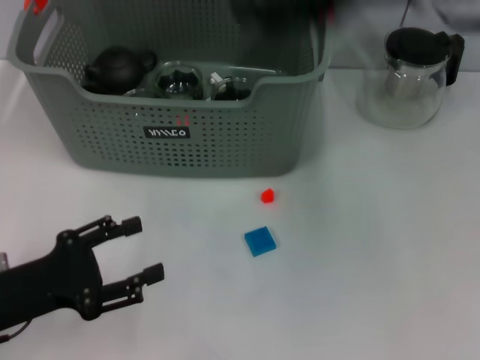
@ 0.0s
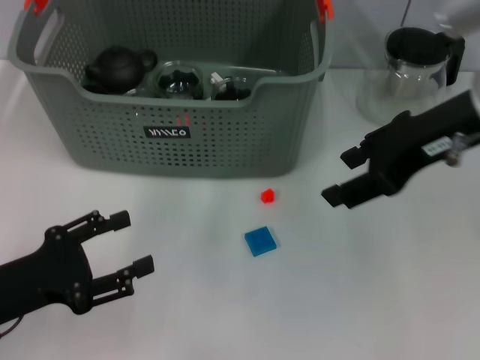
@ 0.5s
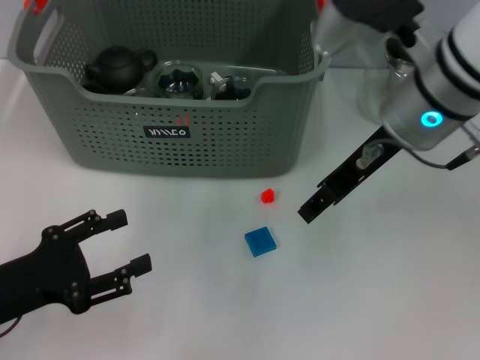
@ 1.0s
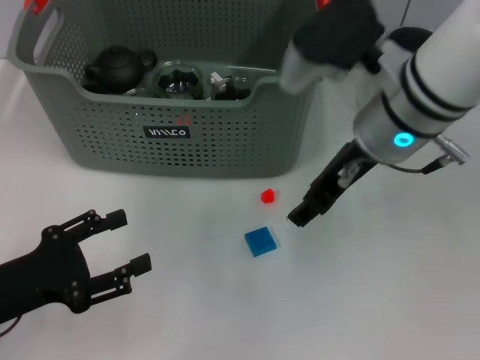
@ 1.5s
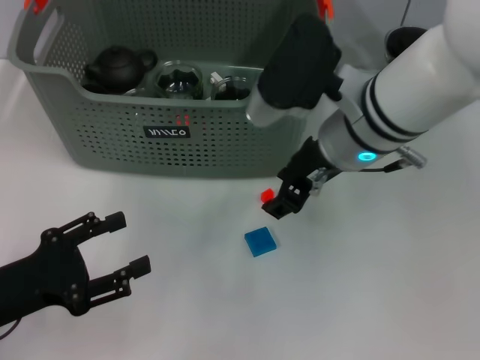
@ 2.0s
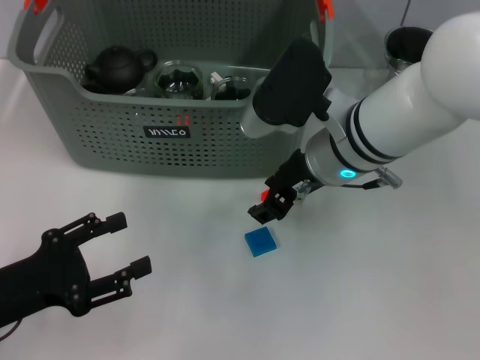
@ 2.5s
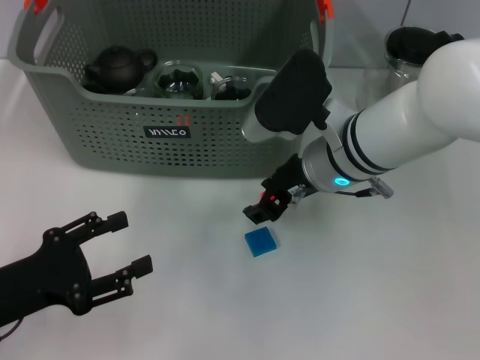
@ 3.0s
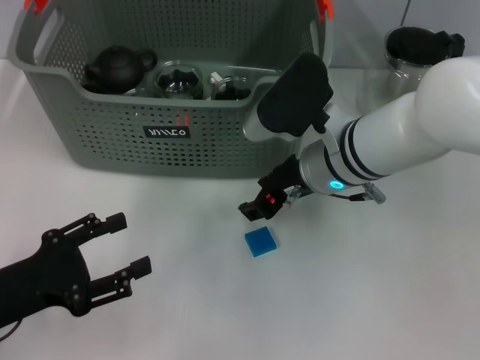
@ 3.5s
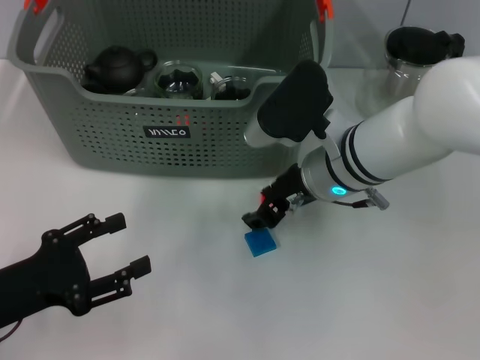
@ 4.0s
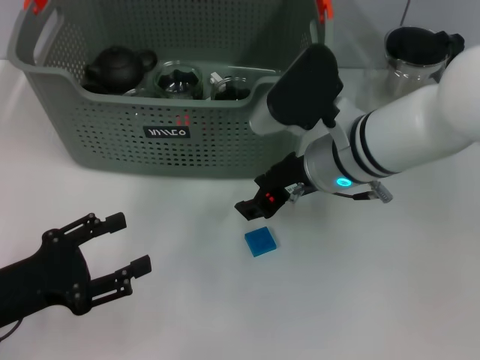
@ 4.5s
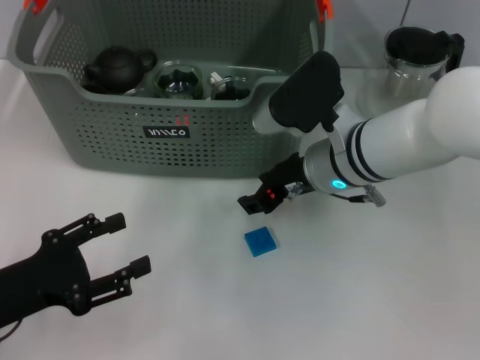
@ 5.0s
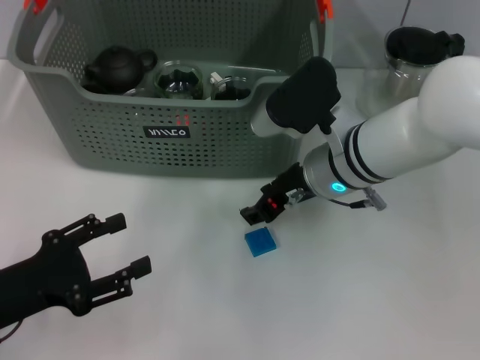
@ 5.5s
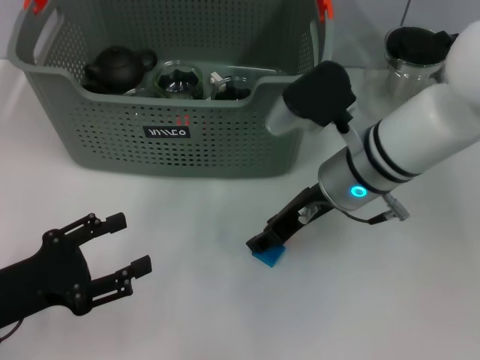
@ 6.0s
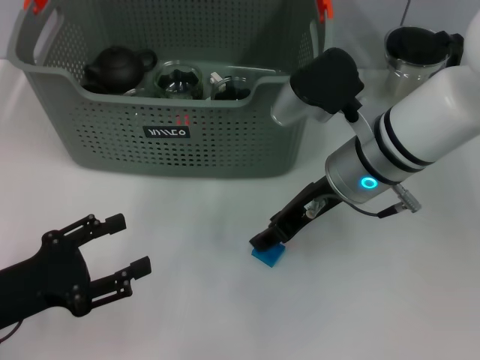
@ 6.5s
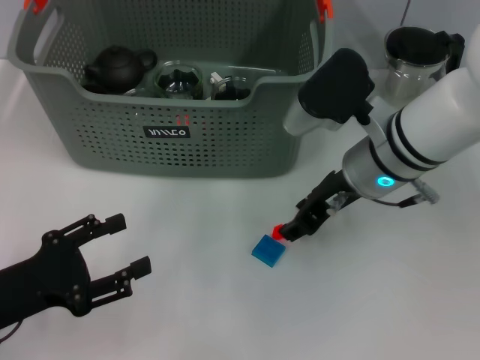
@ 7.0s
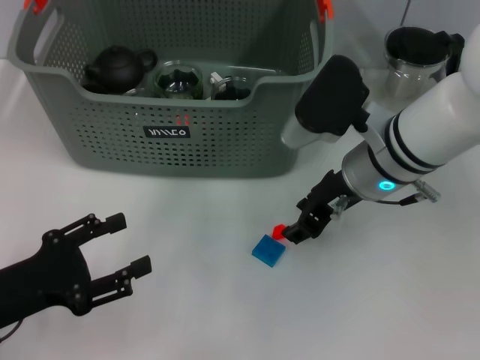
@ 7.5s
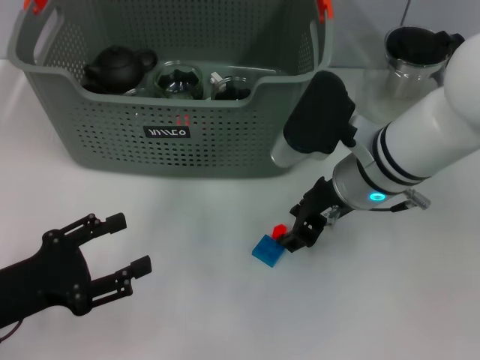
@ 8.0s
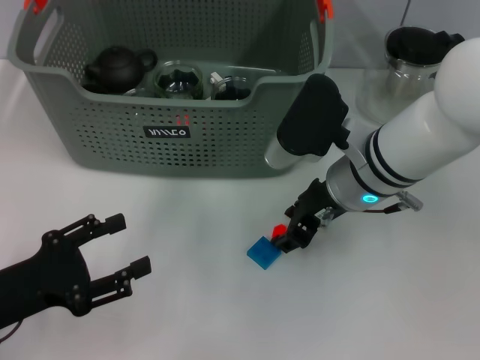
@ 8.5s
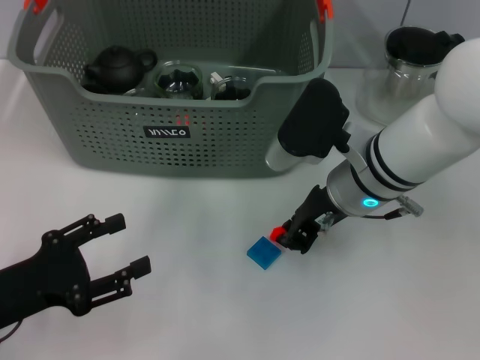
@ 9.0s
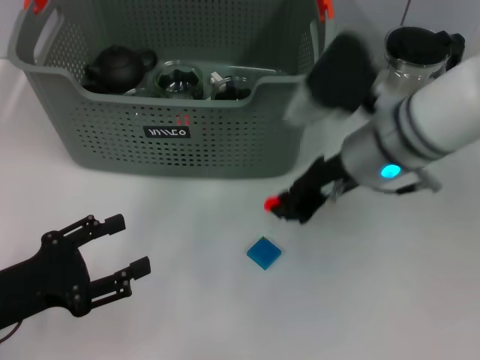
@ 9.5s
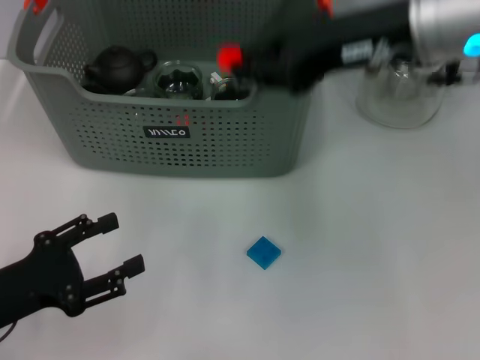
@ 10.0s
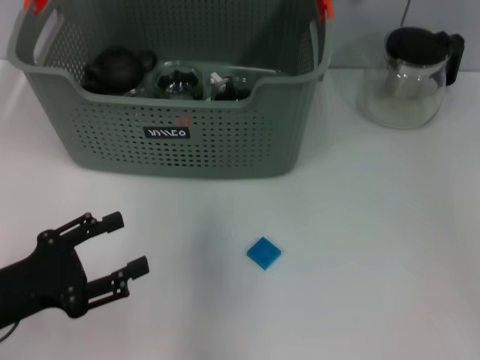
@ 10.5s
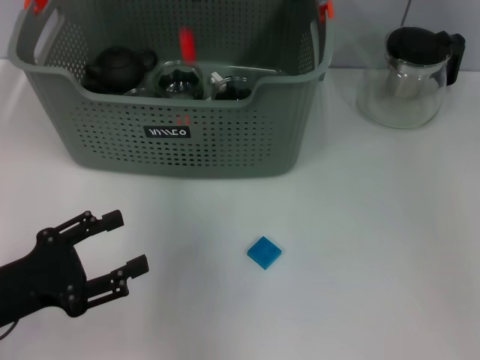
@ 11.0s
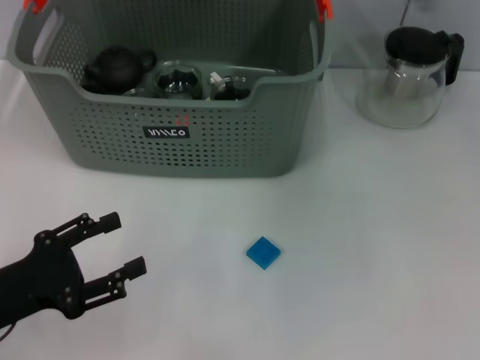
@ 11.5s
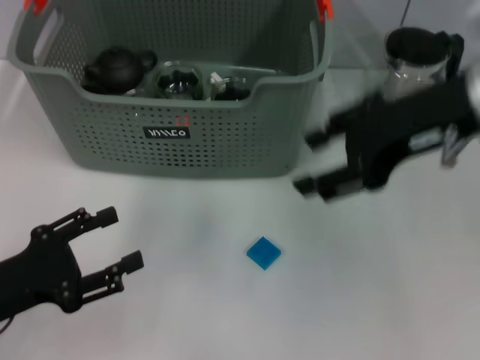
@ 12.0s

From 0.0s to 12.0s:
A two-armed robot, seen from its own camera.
Task of the whole recording: pick up the teacup on the table and place it into the storage bin, pick up the block on the table and place it into the storage bin.
Step, from 0.0s to 9.0s: Grasp the orange block with right gripper.
Step, from 9.5s to 11.0s: Place the orange block in the storage box with right gripper.
From 0.0s to 2.0s: The right gripper moves downward and to the left, some 15 cm.
From 2.0s to 4.0s: The right gripper travels downward by some 5 cm.
From 4.0s to 8.0s: The grippers move only a little.
From 8.0s to 10.0s: The right gripper is displaced upward by some 15 cm, and closes.
From 10.0s to 12.0s: The right gripper reaches some 10 cm forward, then returns, and opens up.

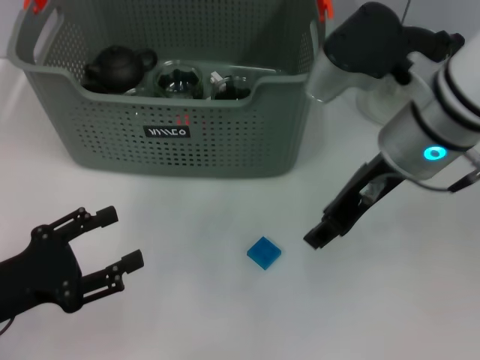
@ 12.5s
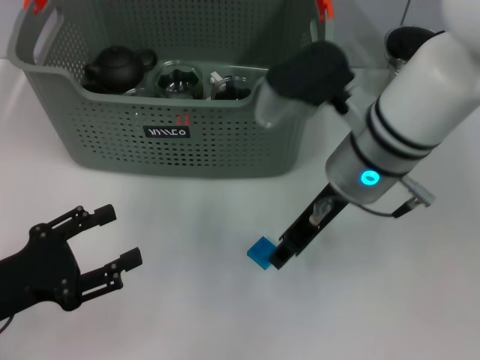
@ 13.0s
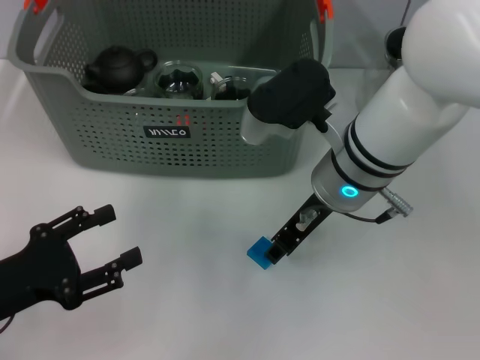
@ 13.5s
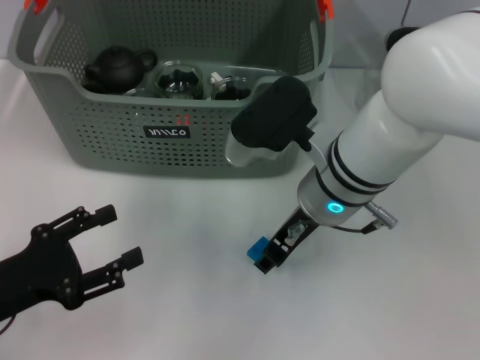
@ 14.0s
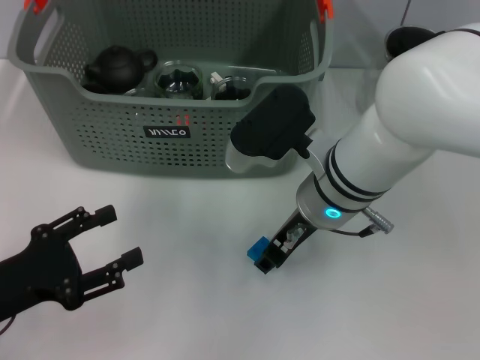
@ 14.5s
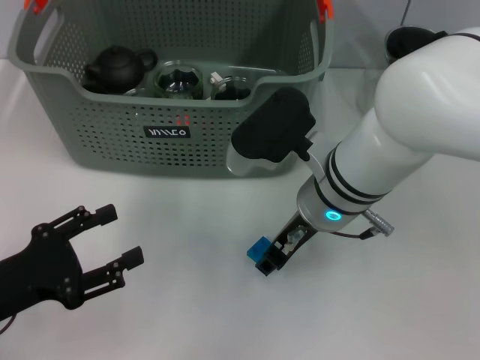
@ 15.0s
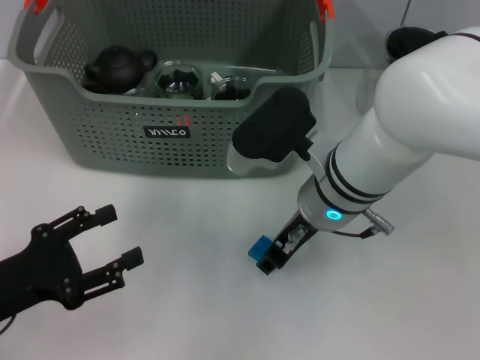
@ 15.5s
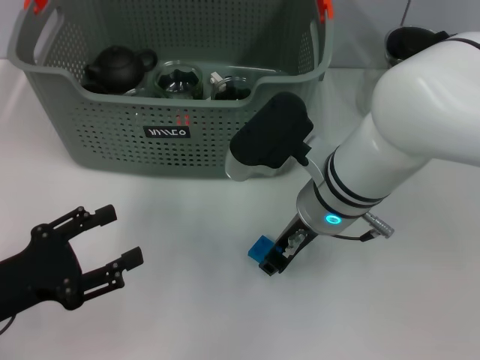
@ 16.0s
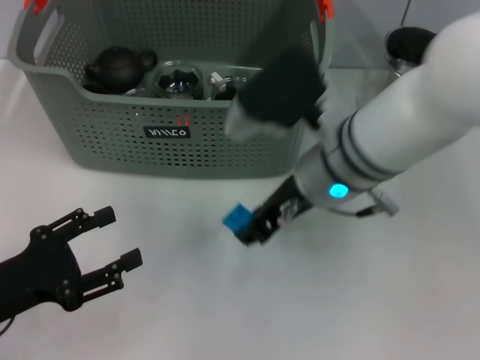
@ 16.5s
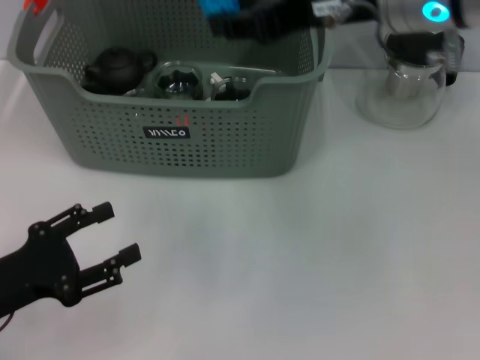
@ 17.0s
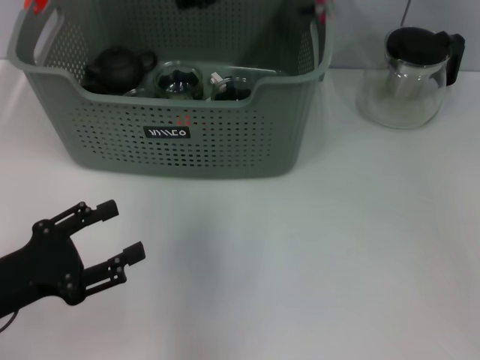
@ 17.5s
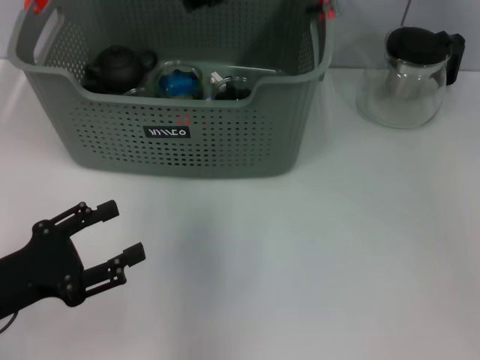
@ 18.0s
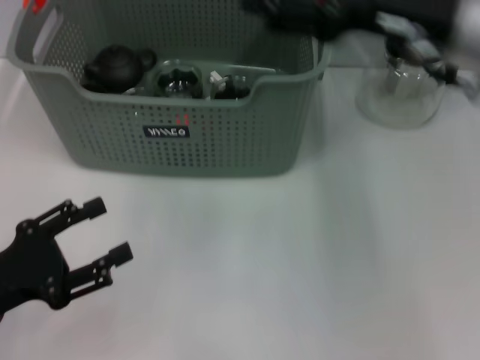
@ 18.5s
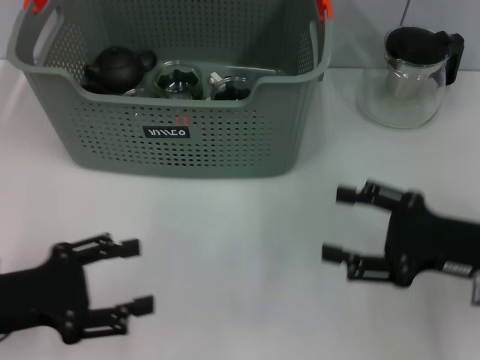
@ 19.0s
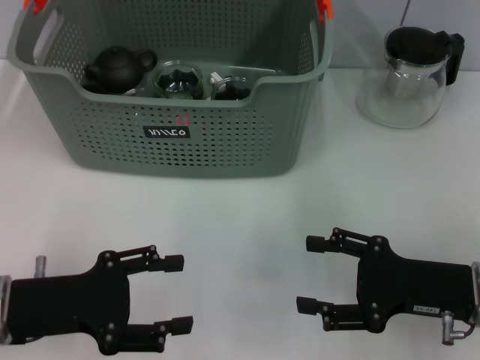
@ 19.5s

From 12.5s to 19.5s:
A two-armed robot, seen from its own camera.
Task of the whole recording: pick up the teacup on the table and place it into the storage bin, pick up the block on the table and place it into the storage bin.
Step, from 12.5s to 16.0s: Grasp the dark blue block with right gripper.
Step, from 16.5s to 18.0s: Place the dark blue block in the storage box with right gripper.
From 12.5s to 14.5s: The right gripper goes roughly 10 cm downward and to the left.
From 14.5s to 16.0s: The two grippers keep their place.
From 16.0s to 17.5s: The right gripper shifts about 20 cm upward and forward.
From 17.5s to 19.5s: The right gripper moves backward, downward and to the right, roughly 35 cm, and opens up.

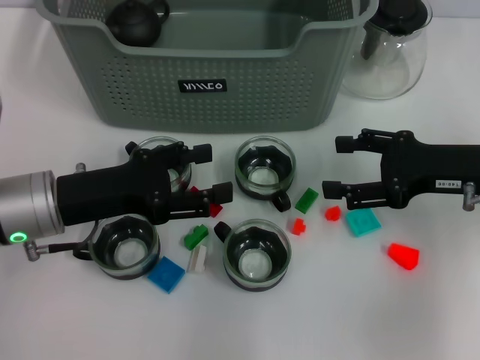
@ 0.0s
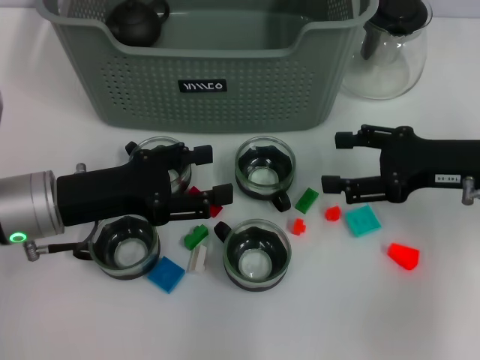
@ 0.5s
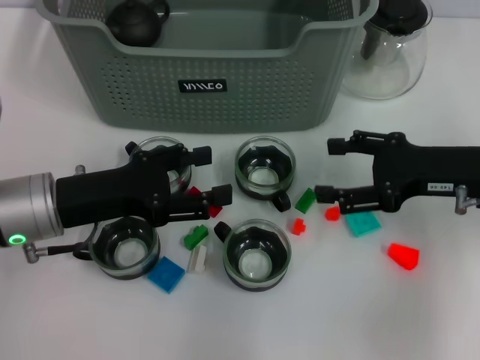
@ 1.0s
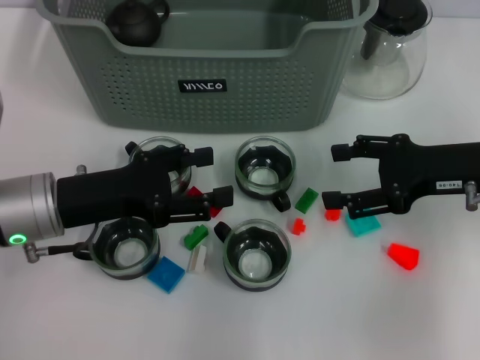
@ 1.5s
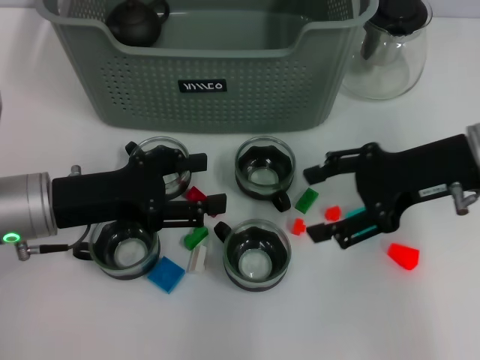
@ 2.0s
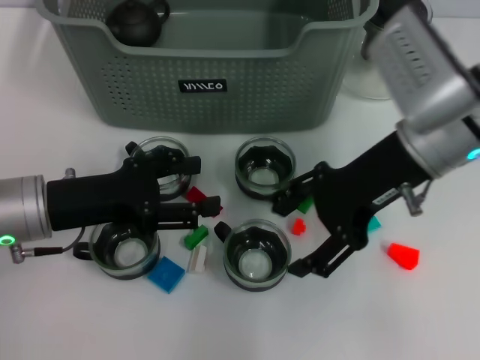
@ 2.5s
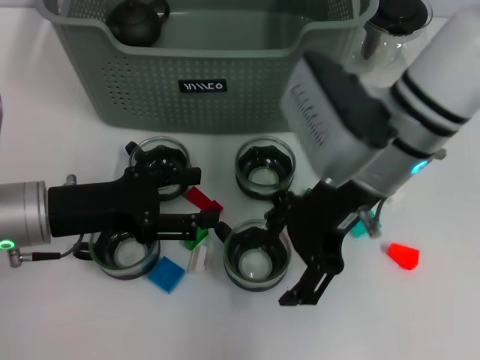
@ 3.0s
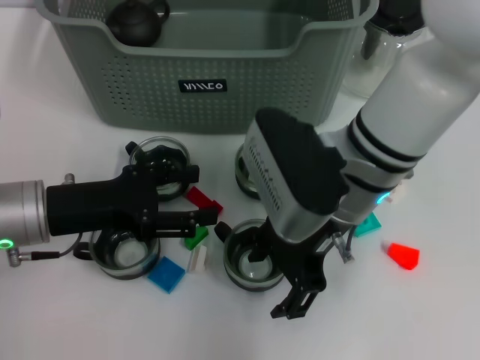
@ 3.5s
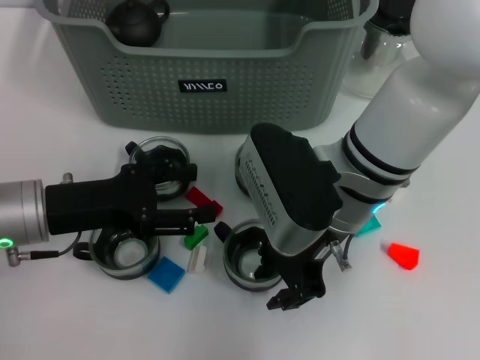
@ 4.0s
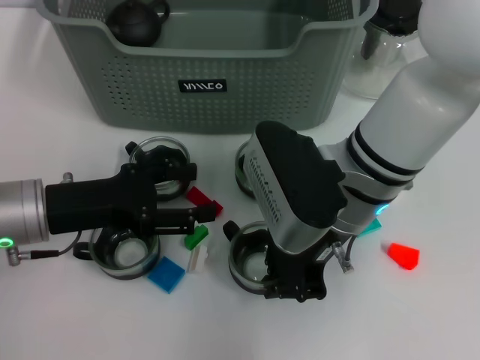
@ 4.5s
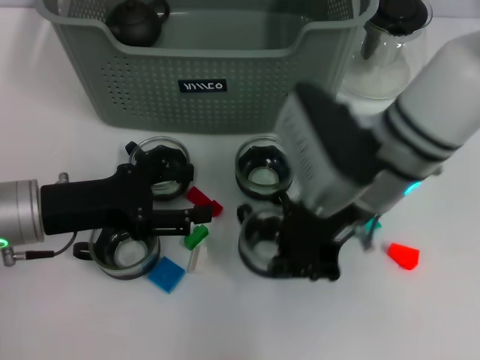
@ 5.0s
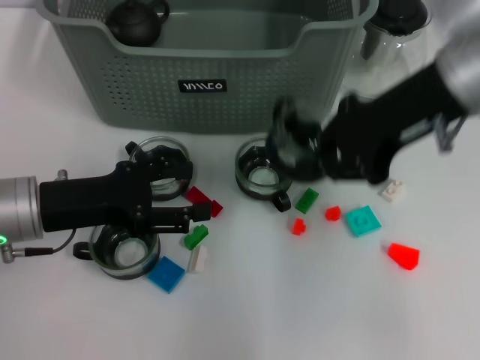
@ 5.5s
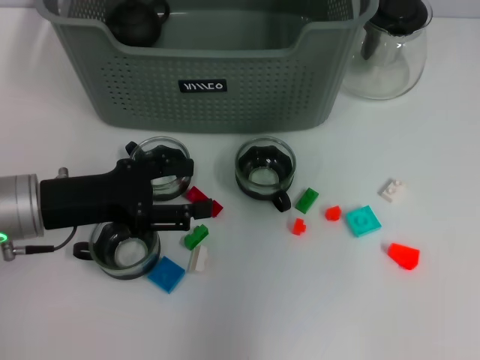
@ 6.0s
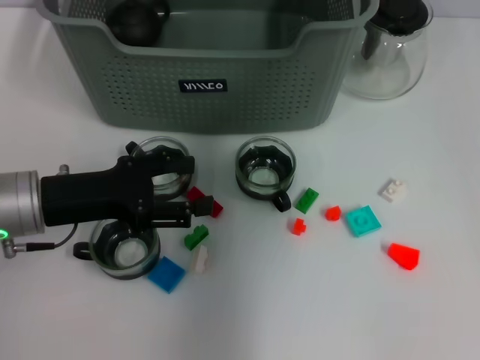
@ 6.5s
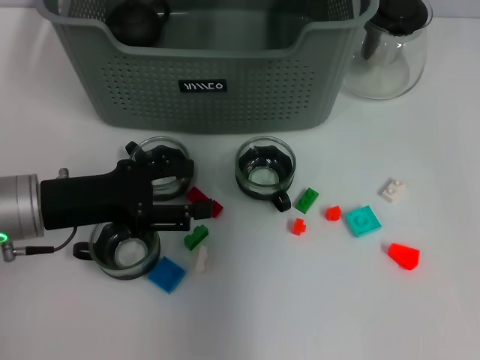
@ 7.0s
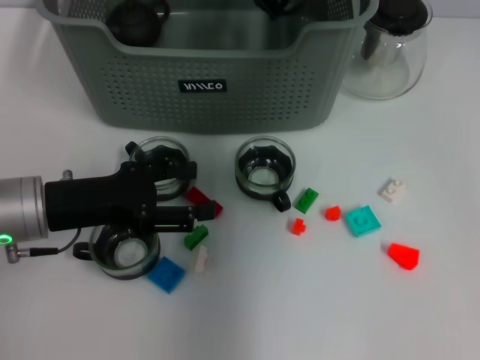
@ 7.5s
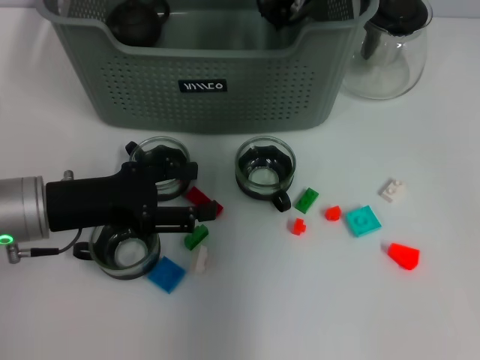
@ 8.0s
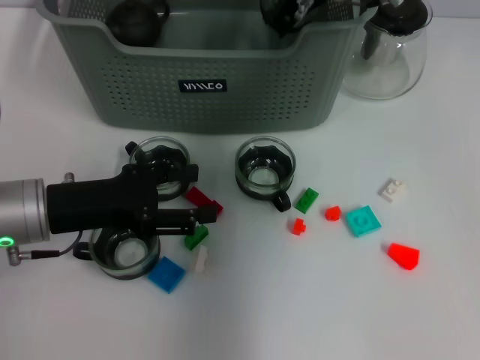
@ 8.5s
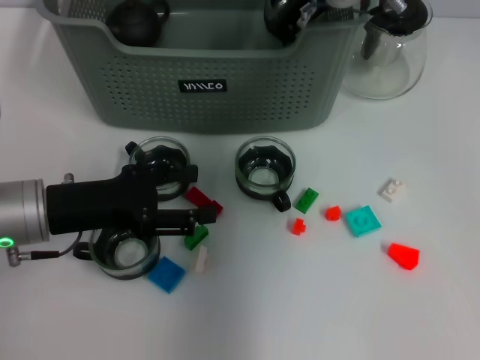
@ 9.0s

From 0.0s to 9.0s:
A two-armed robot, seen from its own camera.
Task of the whole recording: pick up the teacup on the table and place it into the storage bin, pick up the block on the table and place it into the storage bin.
Step, from 0.0s to 4.5s: Grasp the cup with right gripper.
From 0.0s to 2.0s: The right gripper shifts by roughly 5 cm.
From 2.0s to 4.5s: The right gripper is displaced to the left by about 15 cm, and closes up.
From 4.5s to 7.0s: The right gripper is displaced forward and upward by about 20 cm.
From 7.0s to 9.0s: The right gripper ends up approximately 5 cm from where it was.
